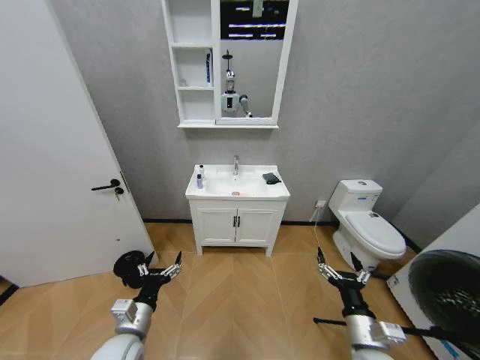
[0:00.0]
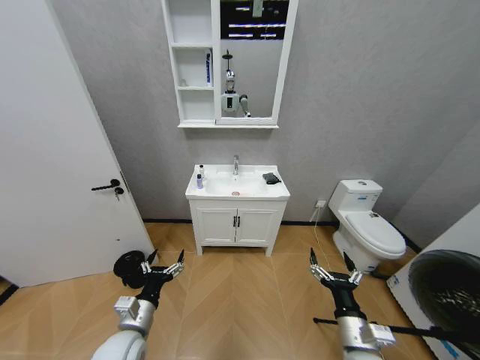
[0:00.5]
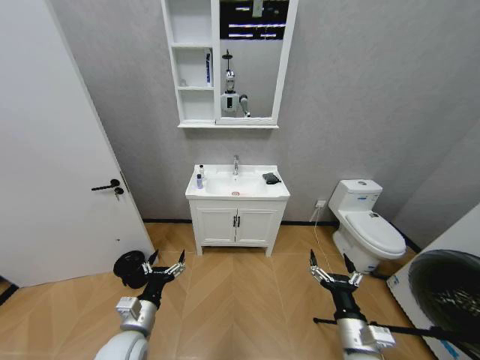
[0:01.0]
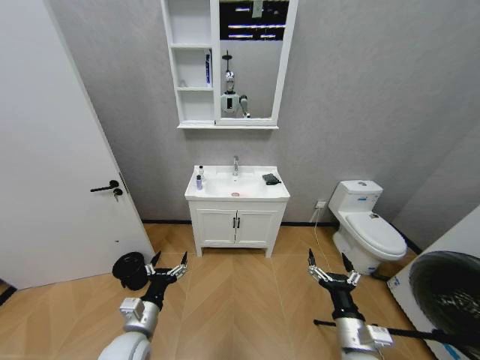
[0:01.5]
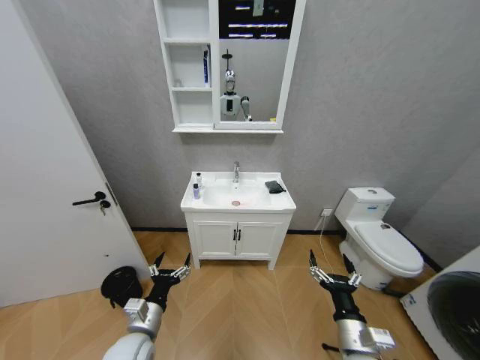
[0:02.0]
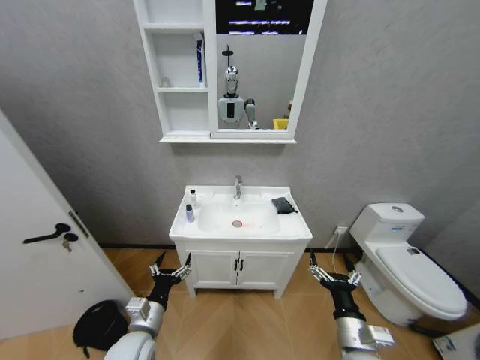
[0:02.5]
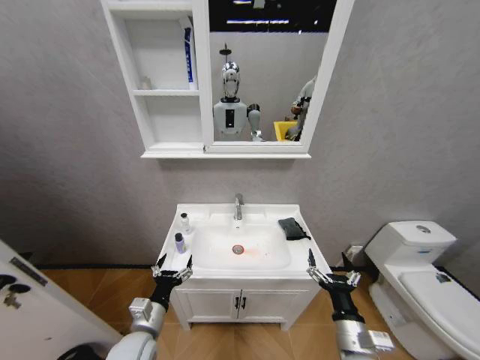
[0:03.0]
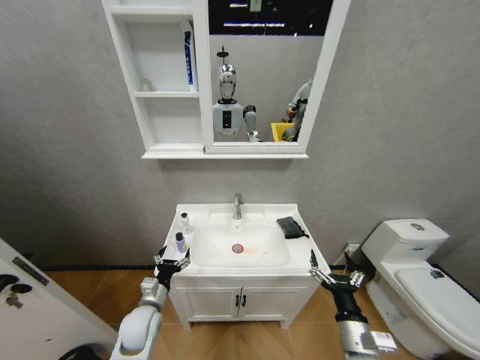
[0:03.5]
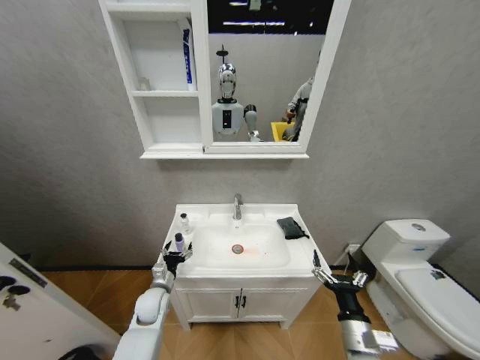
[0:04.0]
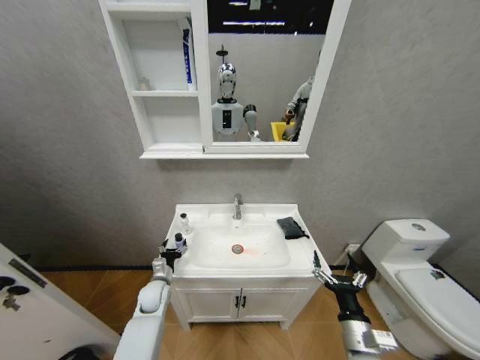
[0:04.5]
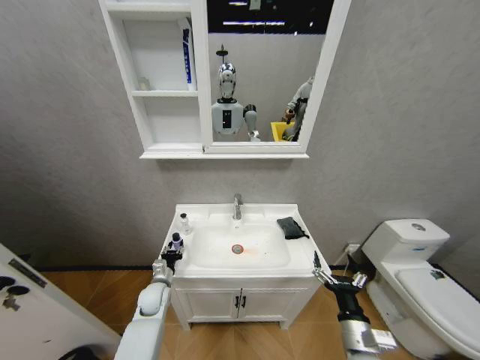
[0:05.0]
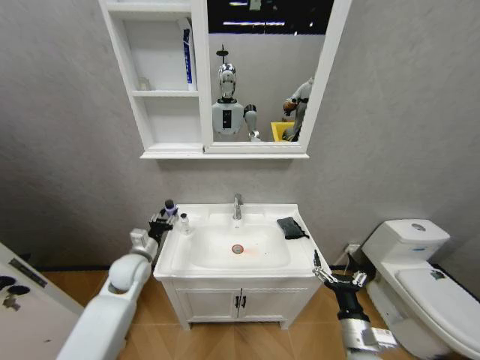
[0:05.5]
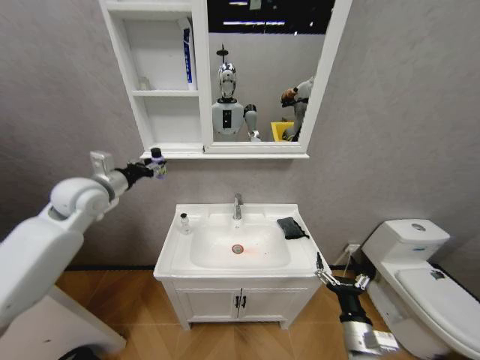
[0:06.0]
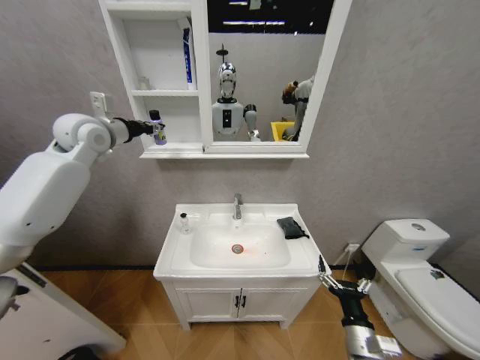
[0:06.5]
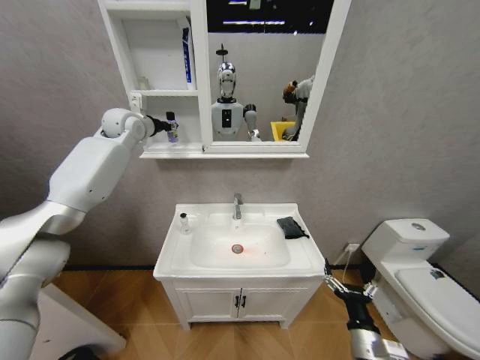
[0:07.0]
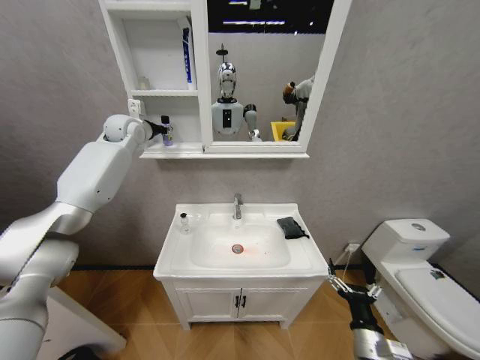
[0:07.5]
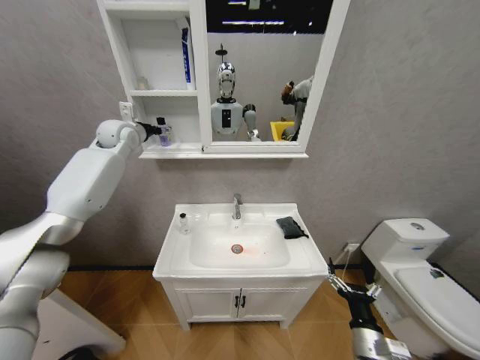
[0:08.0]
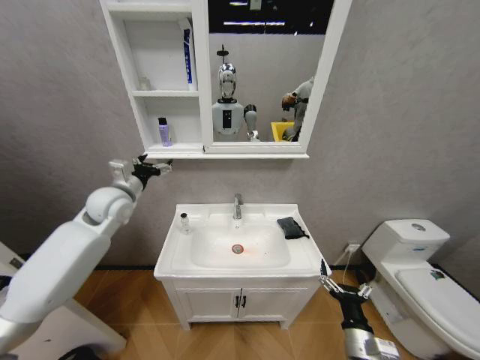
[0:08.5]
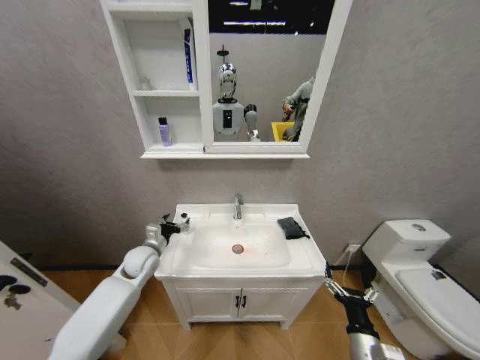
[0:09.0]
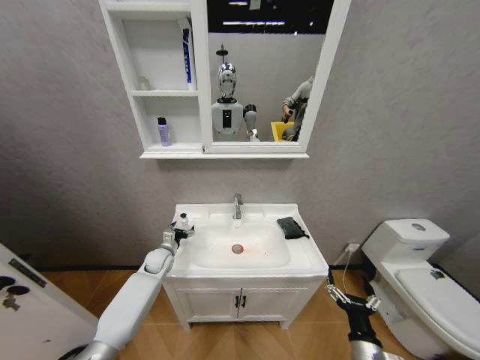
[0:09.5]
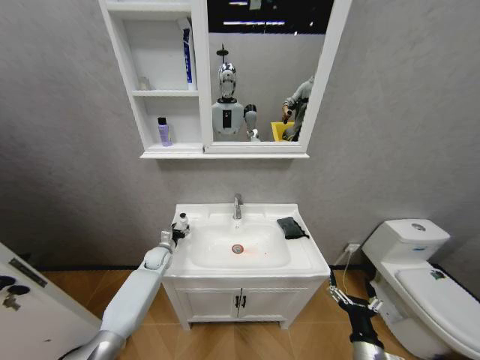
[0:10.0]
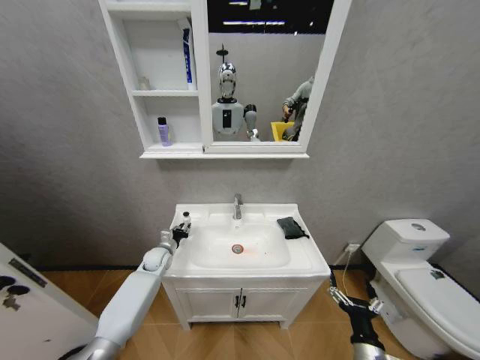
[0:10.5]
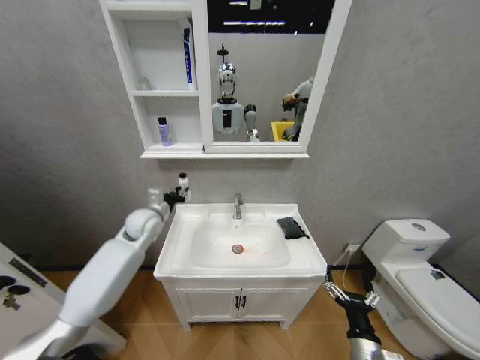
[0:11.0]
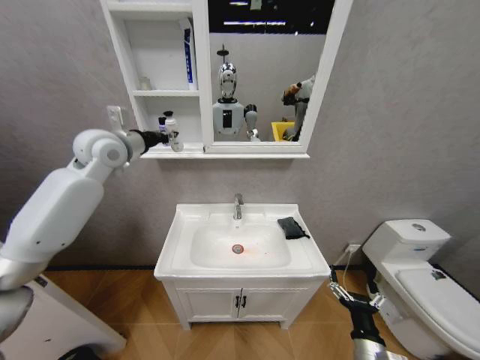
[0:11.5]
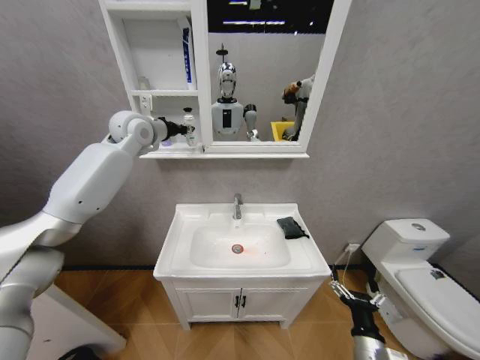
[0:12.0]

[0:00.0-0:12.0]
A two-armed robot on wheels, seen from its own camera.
Task of the whole recording: Move facial cleanser and shampoo from washbasin to cabinet, then wipe washbasin with towel.
0:02.0 to 0:04.0: The left gripper moves forward and downward, approximately 15 cm.
0:04.0 to 0:06.0: The left gripper travels upward by approximately 35 cm, and closes up.
0:06.0 to 0:08.0: The left gripper travels forward and upward by roughly 20 cm, and opens up.
0:08.0 to 0:10.0: The left gripper is displaced downward by approximately 40 cm.
0:10.0 to 0:12.0: The left gripper travels upward by roughly 50 cm, and closes.

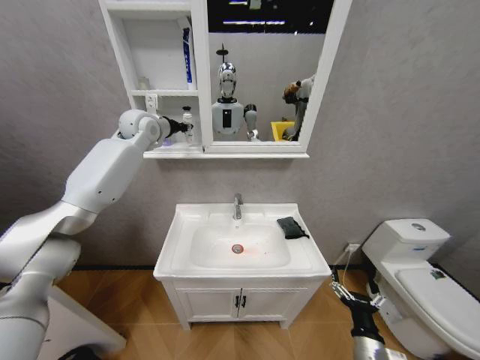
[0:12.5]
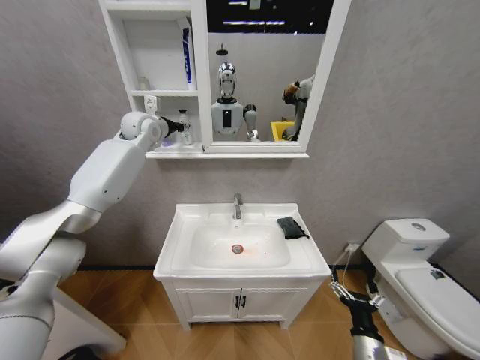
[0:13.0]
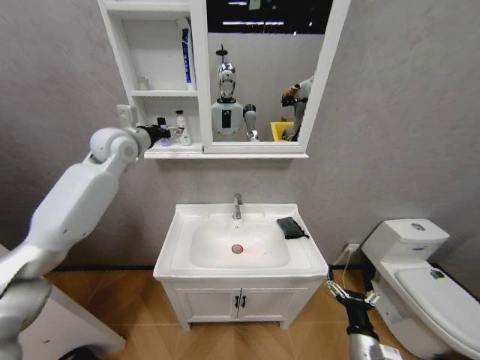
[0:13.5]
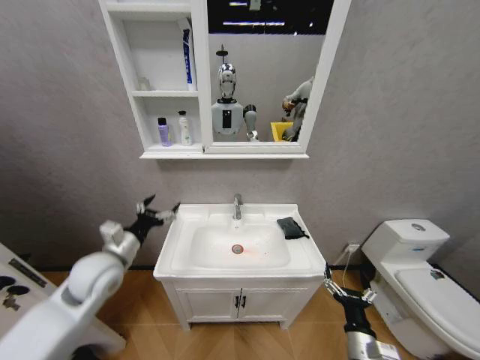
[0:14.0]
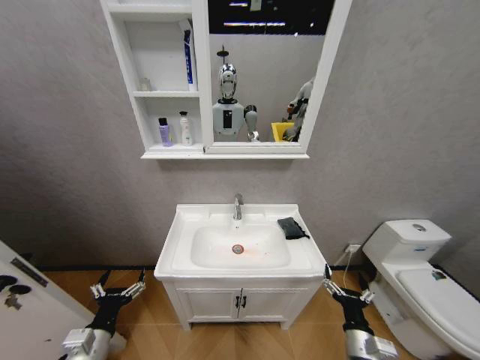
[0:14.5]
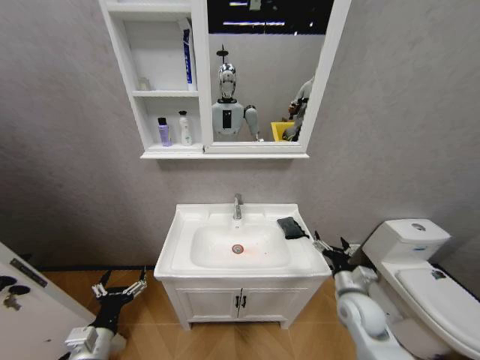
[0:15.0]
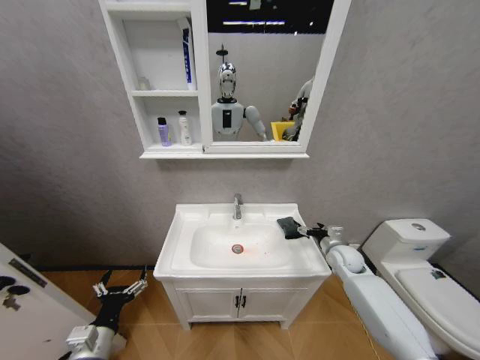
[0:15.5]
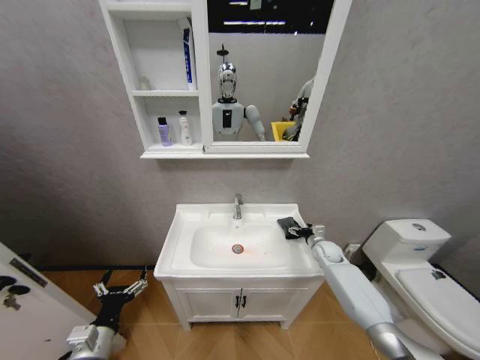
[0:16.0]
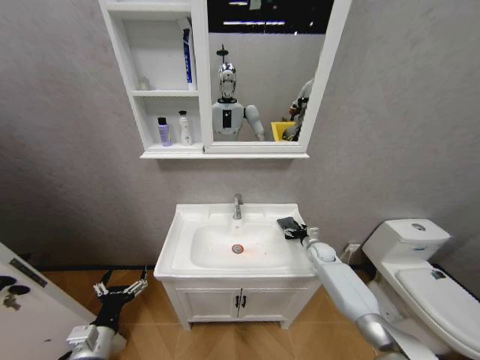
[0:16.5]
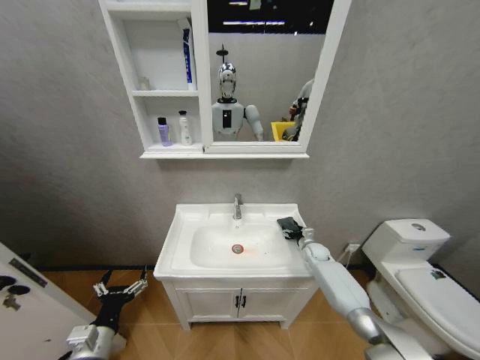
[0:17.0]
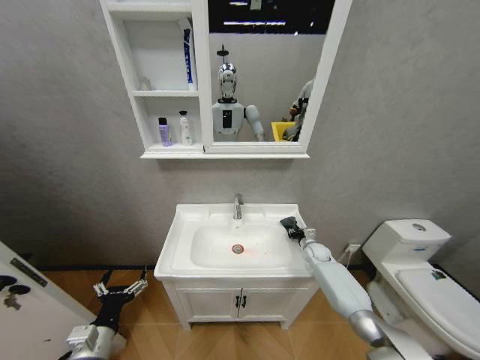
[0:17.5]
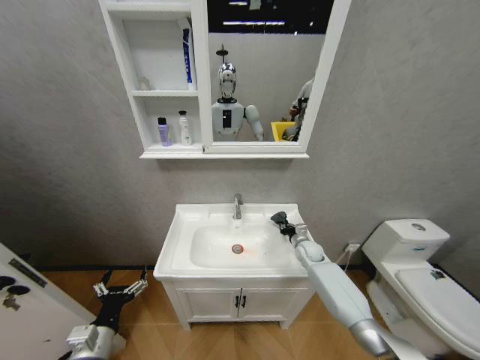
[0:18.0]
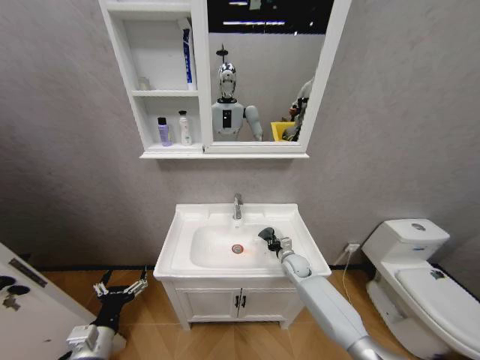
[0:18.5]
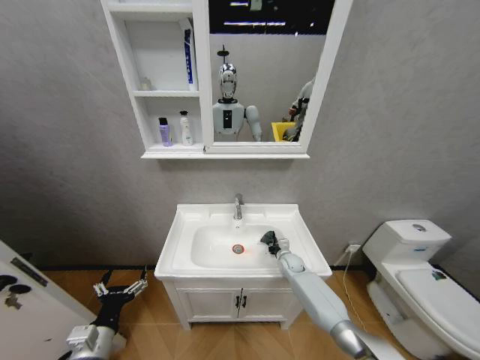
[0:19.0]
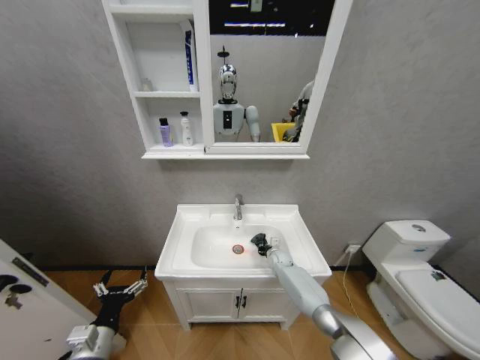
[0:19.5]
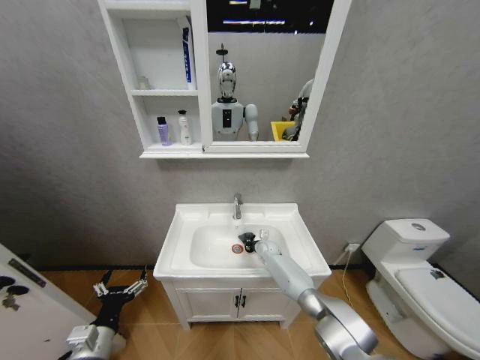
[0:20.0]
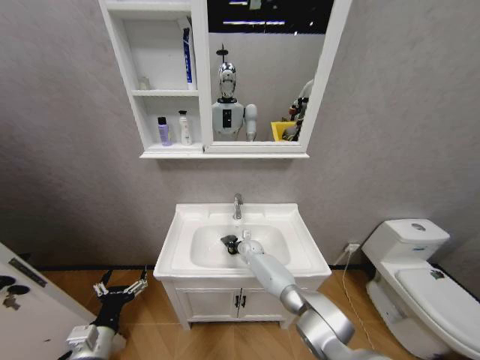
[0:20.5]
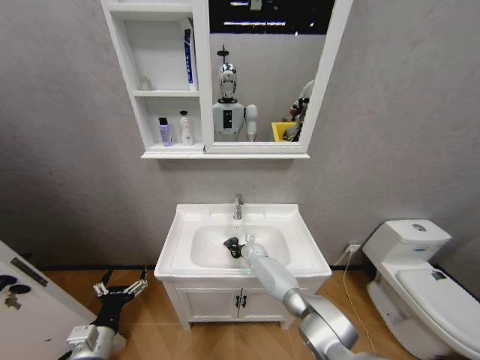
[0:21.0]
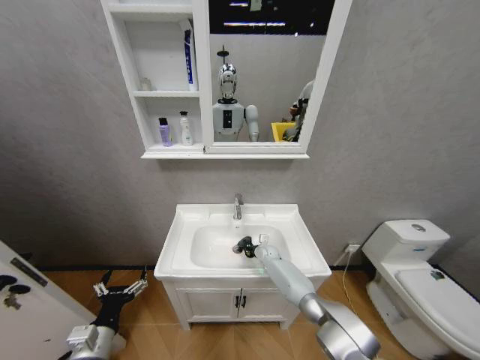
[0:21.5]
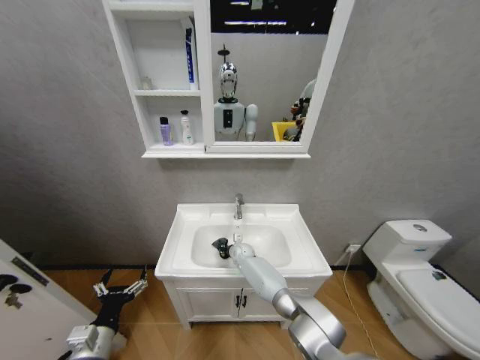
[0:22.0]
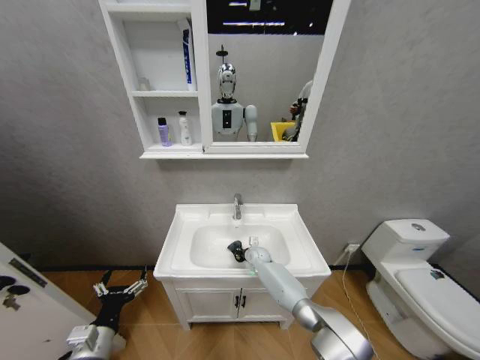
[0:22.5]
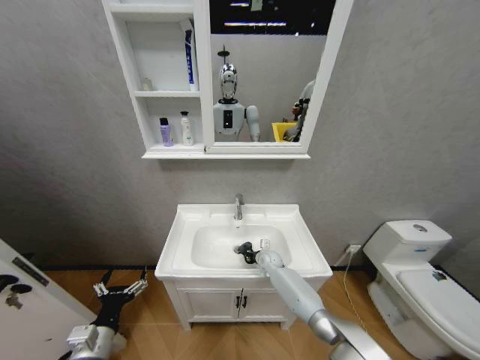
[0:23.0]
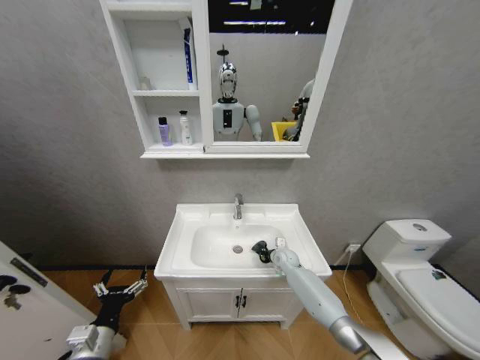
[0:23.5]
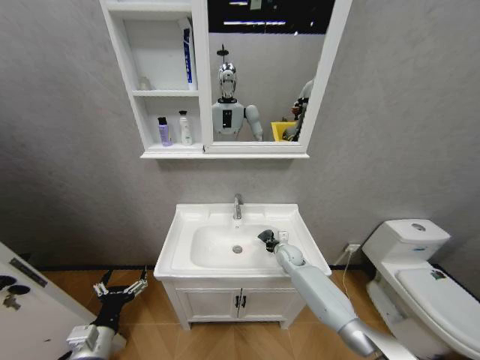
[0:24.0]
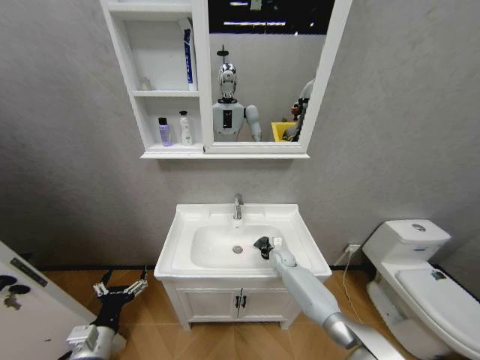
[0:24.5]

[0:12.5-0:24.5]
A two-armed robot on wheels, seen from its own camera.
Task of the whole recording: Move facial cleanser and shampoo from washbasin to cabinet, then wipe washbasin with towel.
0:12.5 to 0:14.5: The left gripper moves backward and downward, about 60 cm, and opens its fingers.
0:14.5 to 0:16.5: The right gripper is displaced forward by roughly 35 cm.
0:16.5 to 0:18.5: The right gripper travels to the left by roughly 10 cm, and closes.
0:18.5 to 0:20.5: The right gripper moves to the left and forward, approximately 20 cm.
0:20.5 to 0:22.5: The right gripper moves left and right over some 10 cm, changing direction 2 times.
0:22.5 to 0:24.5: The right gripper moves to the right, roughly 10 cm.

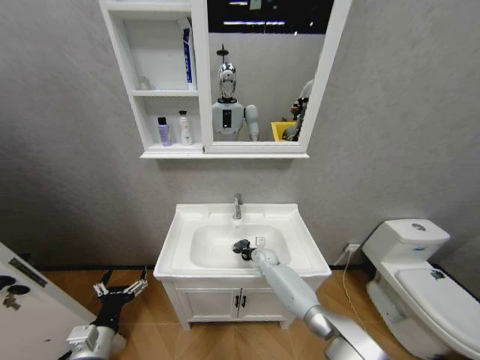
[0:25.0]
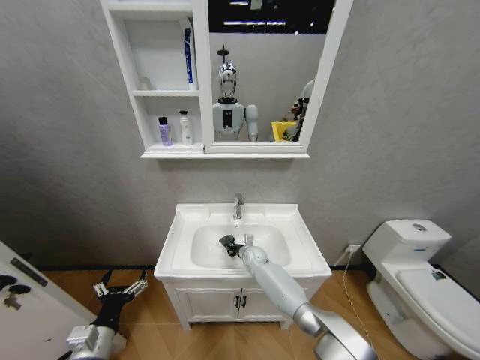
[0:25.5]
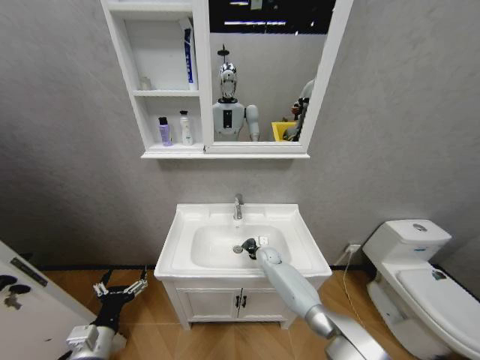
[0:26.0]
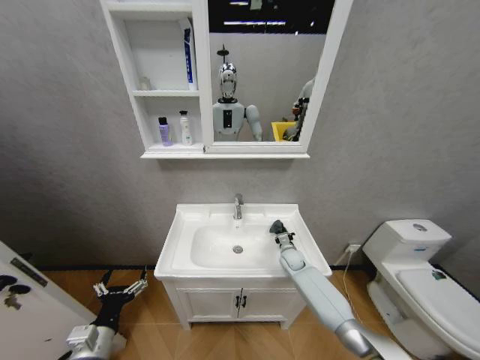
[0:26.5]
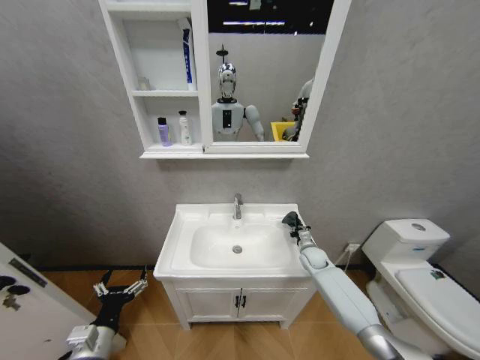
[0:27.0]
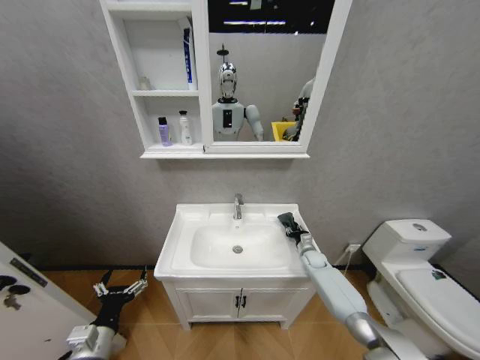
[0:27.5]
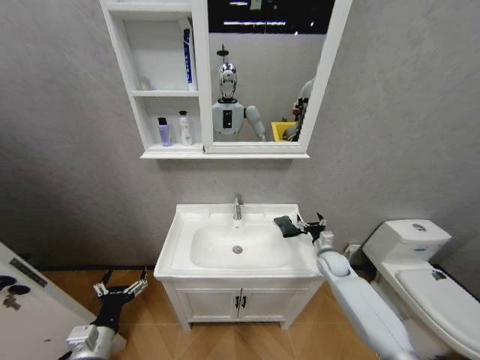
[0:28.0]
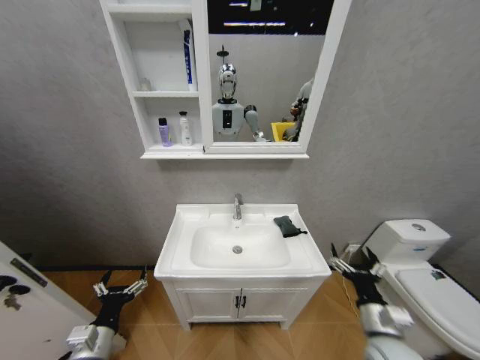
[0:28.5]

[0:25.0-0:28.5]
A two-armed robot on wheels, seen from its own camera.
Task of the whole recording: Move facial cleanser and shampoo from washbasin to cabinet, then wipe washbasin with towel.
0:25.0 to 0:27.0: The right gripper heads to the right, covering roughly 20 cm.
0:27.0 to 0:28.5: The right gripper goes approximately 30 cm backward, and opens.
